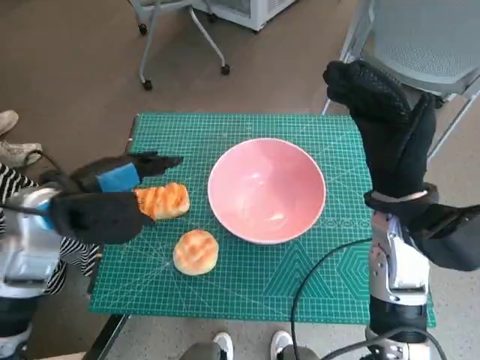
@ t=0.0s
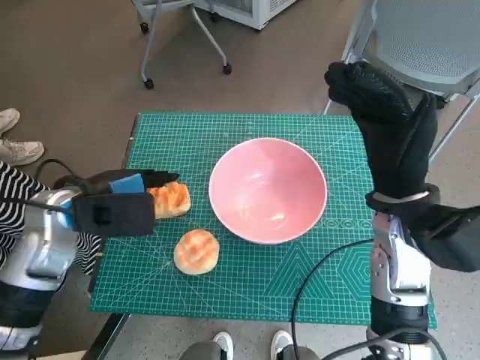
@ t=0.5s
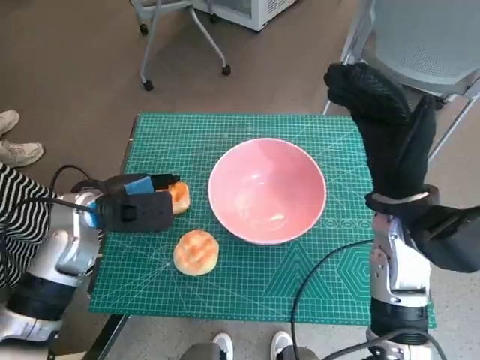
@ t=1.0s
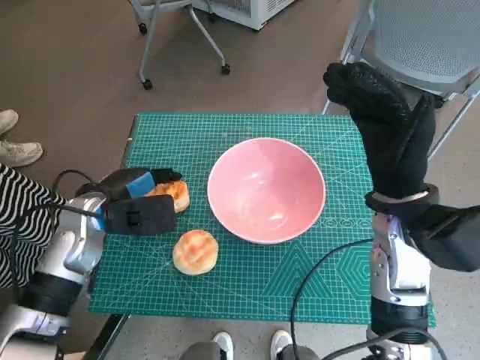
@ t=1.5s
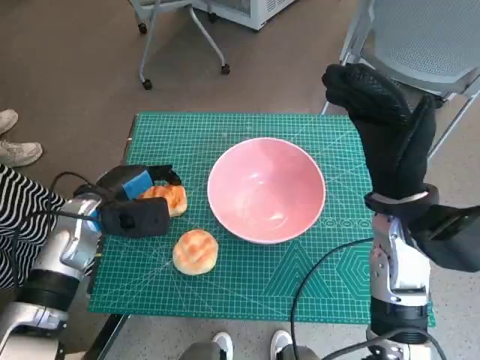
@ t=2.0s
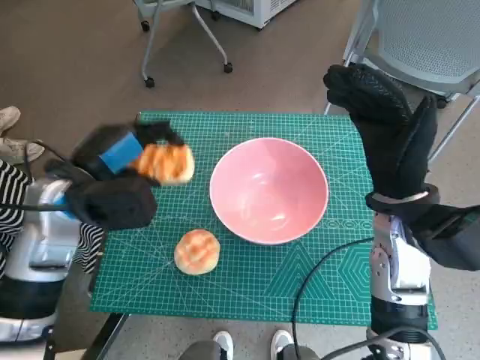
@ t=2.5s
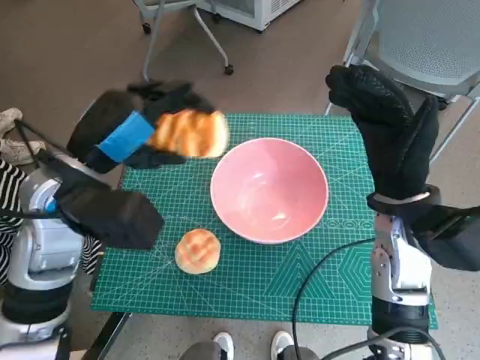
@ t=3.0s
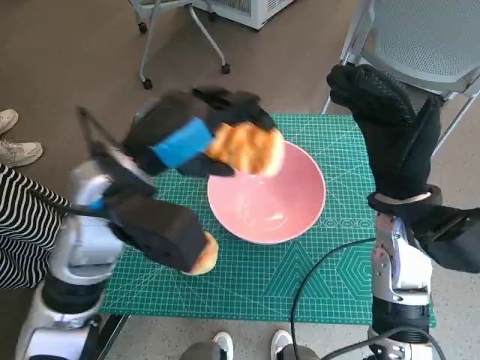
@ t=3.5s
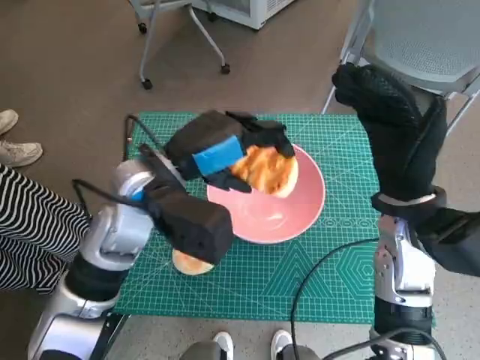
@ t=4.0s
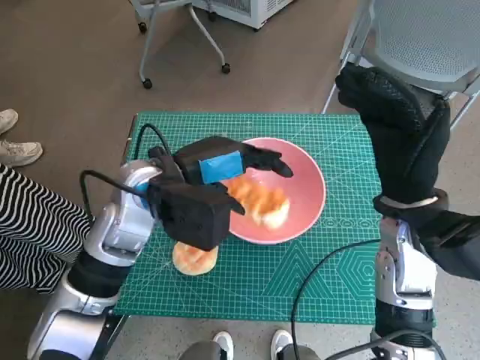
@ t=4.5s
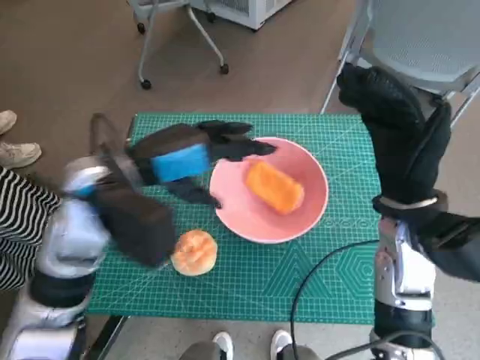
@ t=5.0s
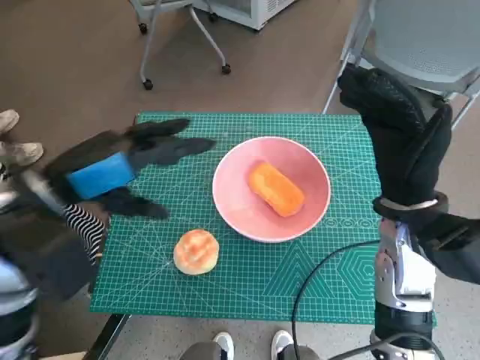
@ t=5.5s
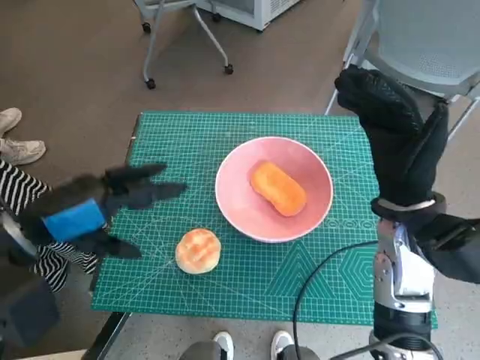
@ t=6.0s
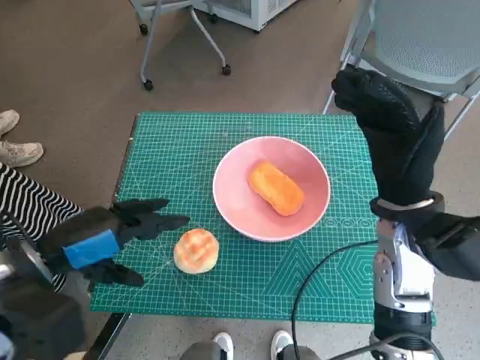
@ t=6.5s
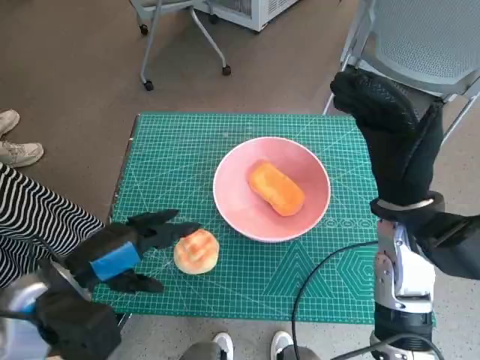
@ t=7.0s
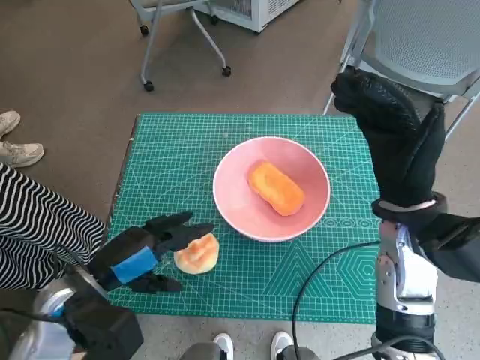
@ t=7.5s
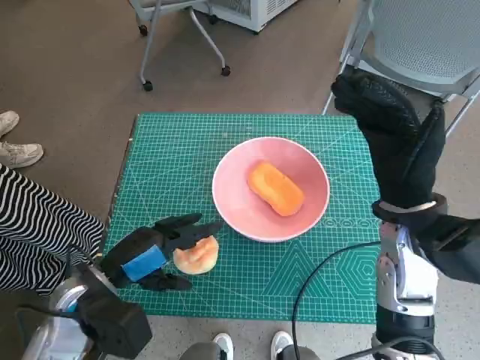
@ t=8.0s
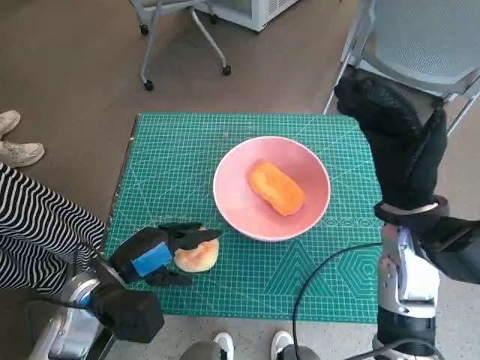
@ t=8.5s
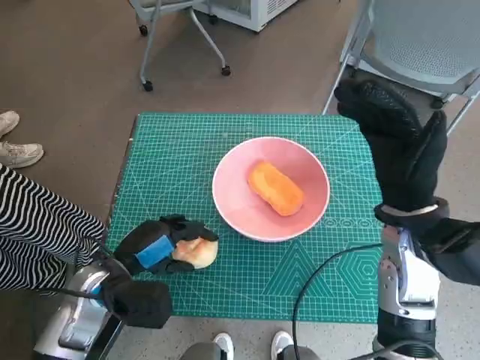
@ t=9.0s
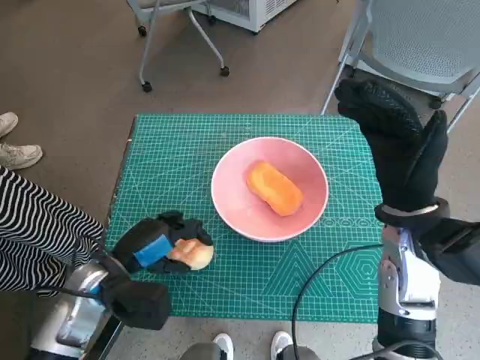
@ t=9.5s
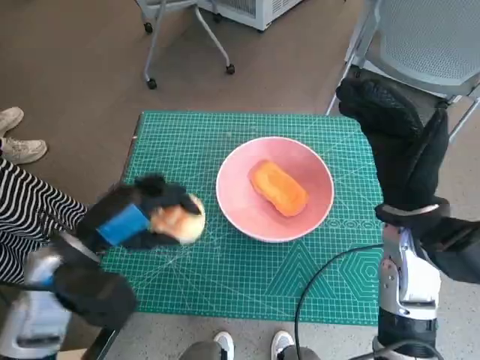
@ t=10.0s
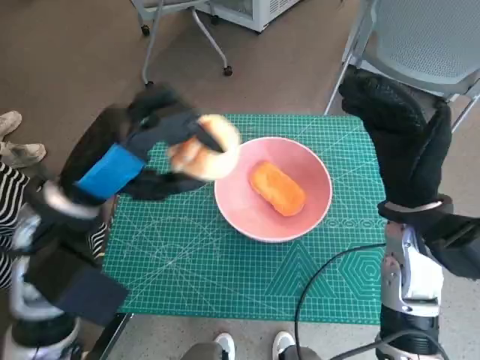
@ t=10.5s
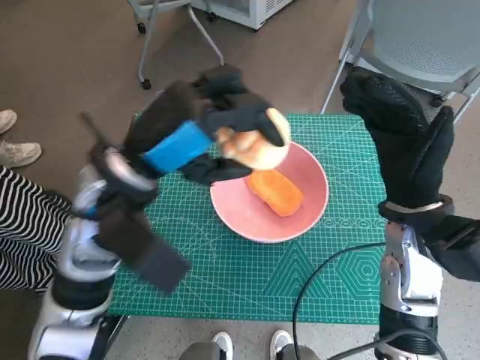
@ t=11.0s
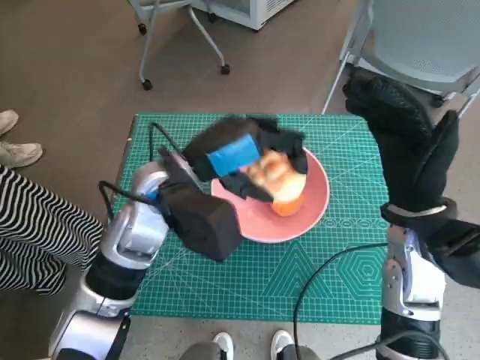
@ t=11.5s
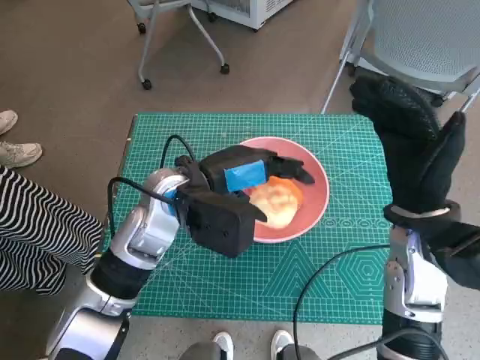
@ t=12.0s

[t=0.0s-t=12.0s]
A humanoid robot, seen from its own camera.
Task of the whole recording: Push the bowl into the center of the table and put the bread into the bowl.
Step, t=2.0s to t=4.5s: Place the long bread in pink bowl with left hand.
Step, t=5.0s to t=9.0s: Grasp the round bread with left hand.
Step, t=9.5s to t=11.5s: Place the round bread in pink bowl with left hand.
t=0.0s to t=2.0s: The left hand is displaced downward by some 10 cm.
t=2.0s to t=4.0s: The left hand is displaced to the right and upward by about 15 cm.
t=4.0s to t=6.0s: The left hand goes some 15 cm to the left and backward.
t=6.0s to t=8.0s: The left hand is displaced downward by some 10 cm.
t=10.0s to t=12.0s: The left hand goes approximately 15 cm to the right and forward.

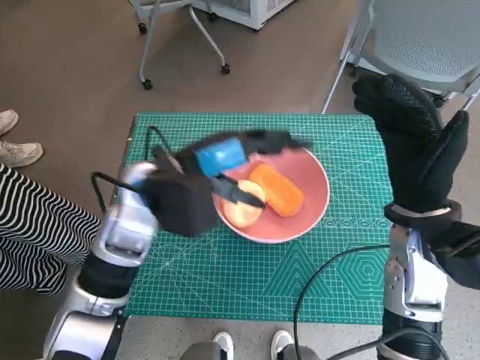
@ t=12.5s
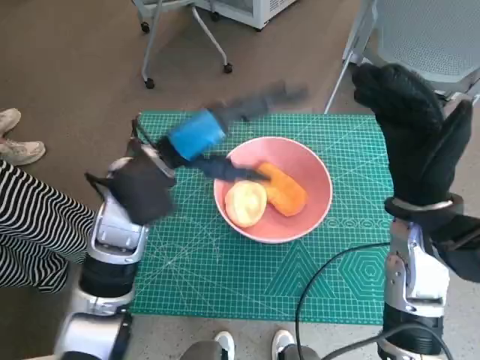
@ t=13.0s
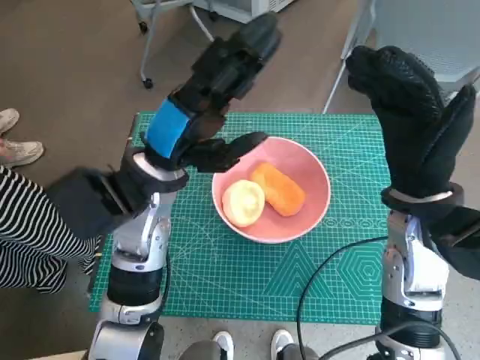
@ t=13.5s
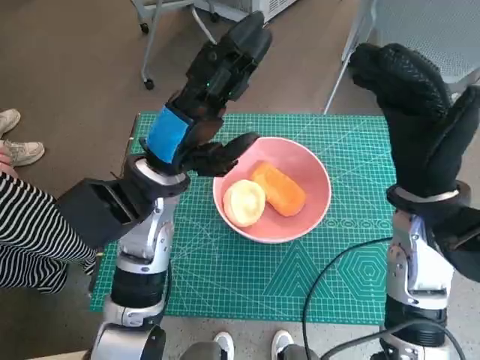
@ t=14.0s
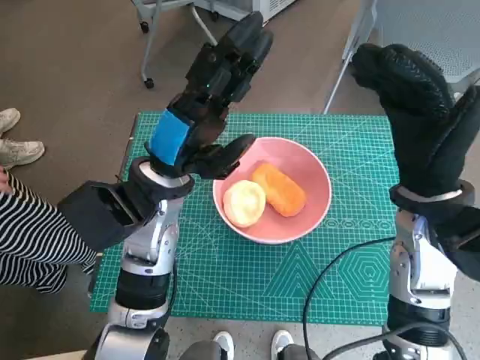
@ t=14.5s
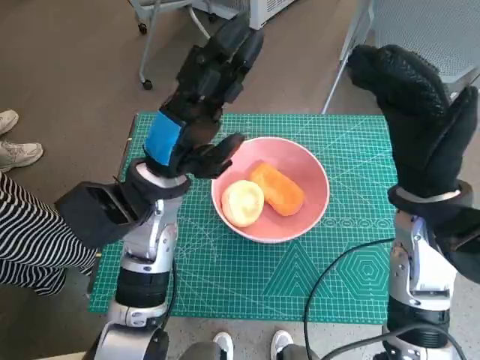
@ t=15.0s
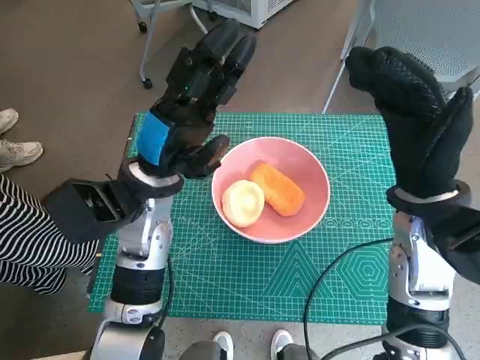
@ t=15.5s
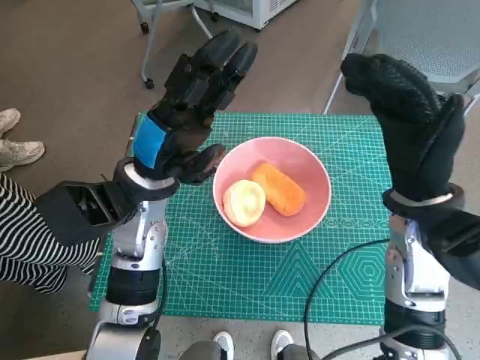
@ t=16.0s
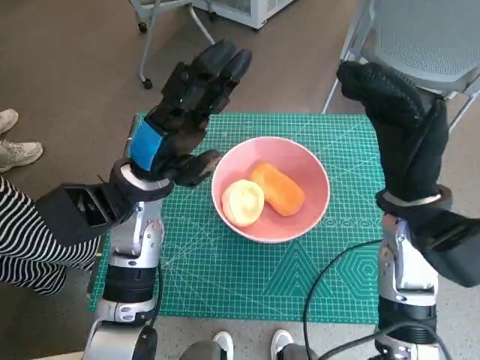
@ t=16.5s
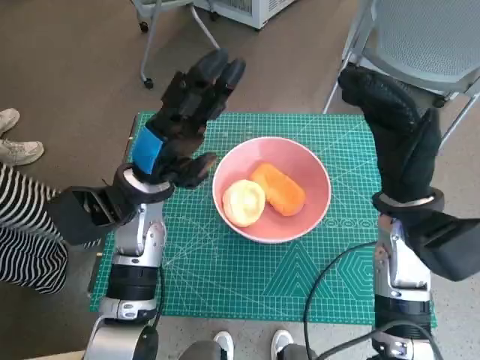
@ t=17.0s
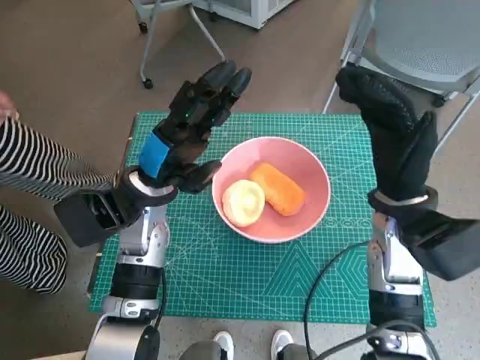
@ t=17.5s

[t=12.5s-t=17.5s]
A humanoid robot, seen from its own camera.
Task of the whole recording: Push the bowl into the center of the table and put the bread into the bowl.
t=15.0s to t=17.5s: The left hand ends up about 5 cm from where it was.
